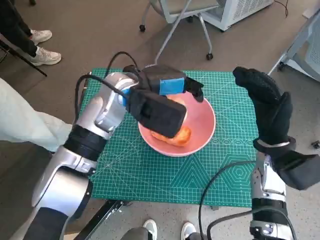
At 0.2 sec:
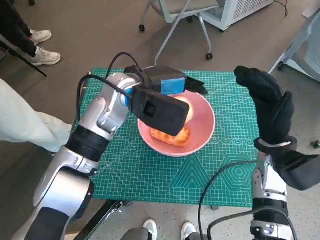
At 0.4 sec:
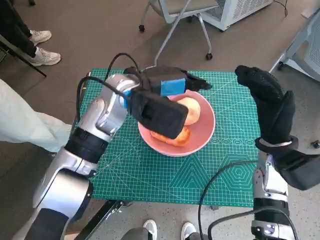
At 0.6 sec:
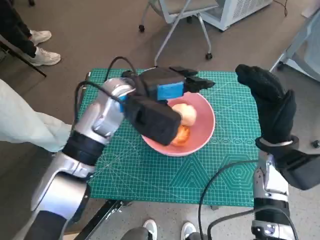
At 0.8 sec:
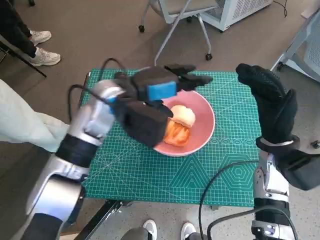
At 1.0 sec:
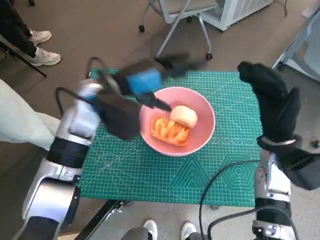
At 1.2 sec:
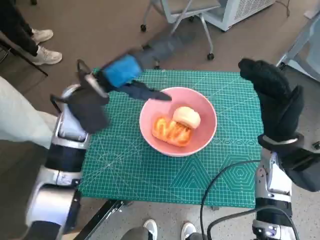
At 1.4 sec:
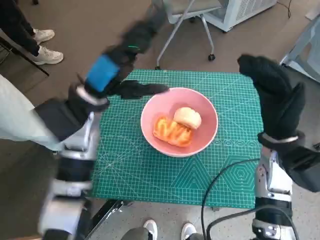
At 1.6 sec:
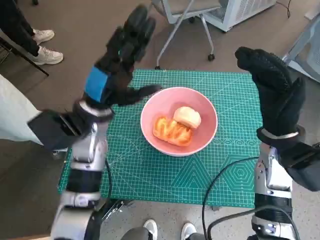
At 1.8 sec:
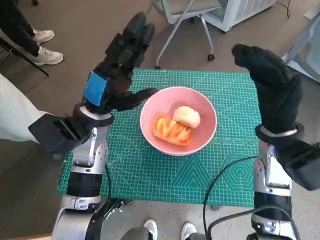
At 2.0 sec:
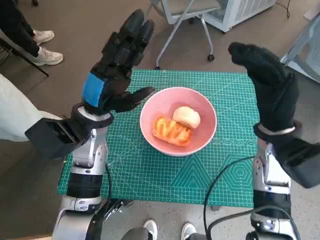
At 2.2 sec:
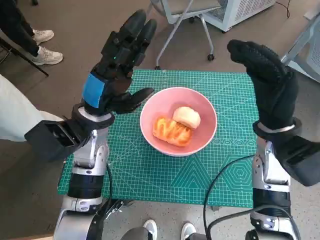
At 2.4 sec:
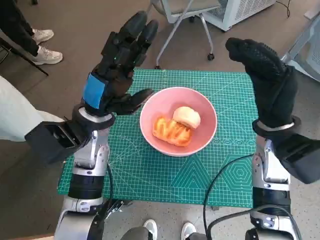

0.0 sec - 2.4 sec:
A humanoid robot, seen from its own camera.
Task of the whole recording: Push the bowl into the center of the table and put the bread into the bowl.
0.0 sec - 1.2 sec: The left hand heads to the left, covering approximately 5 cm.
1.2 sec - 2.4 sec: The left hand goes roughly 5 cm downward.

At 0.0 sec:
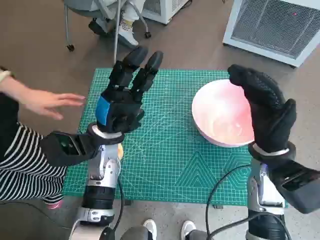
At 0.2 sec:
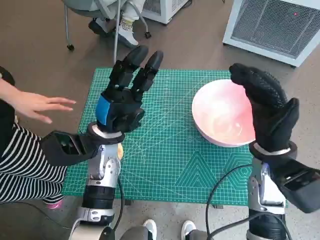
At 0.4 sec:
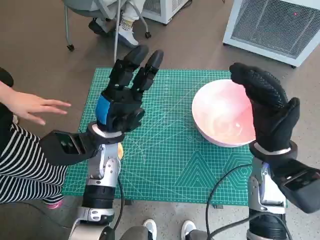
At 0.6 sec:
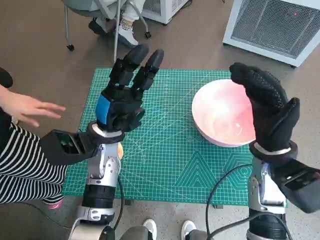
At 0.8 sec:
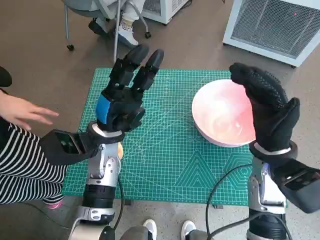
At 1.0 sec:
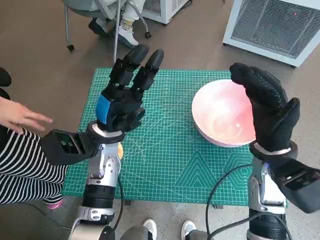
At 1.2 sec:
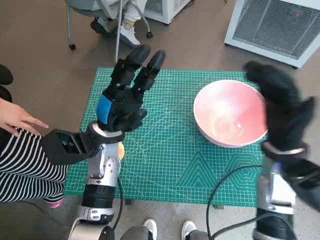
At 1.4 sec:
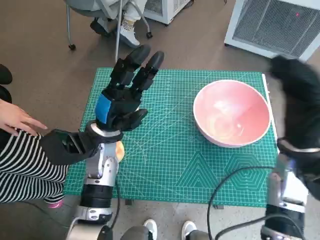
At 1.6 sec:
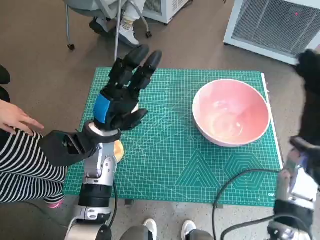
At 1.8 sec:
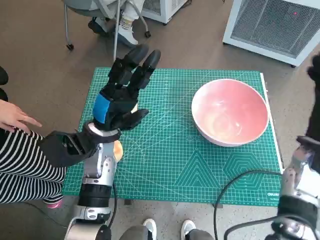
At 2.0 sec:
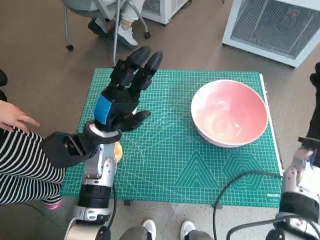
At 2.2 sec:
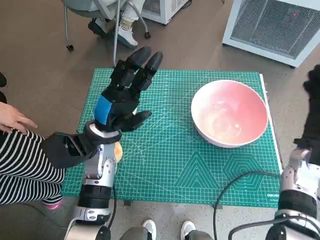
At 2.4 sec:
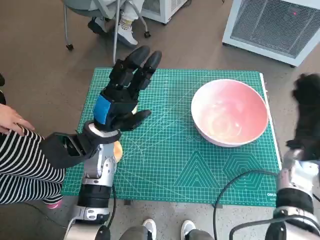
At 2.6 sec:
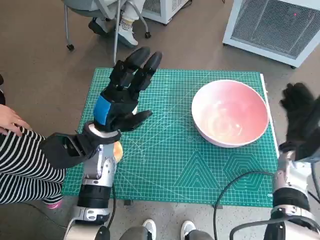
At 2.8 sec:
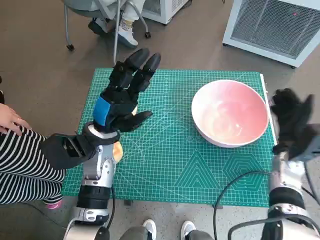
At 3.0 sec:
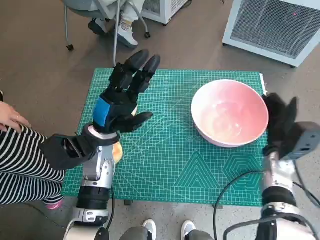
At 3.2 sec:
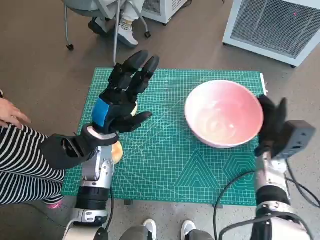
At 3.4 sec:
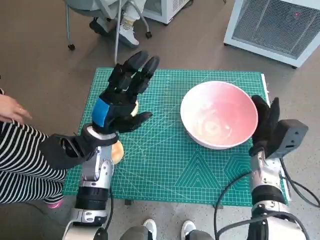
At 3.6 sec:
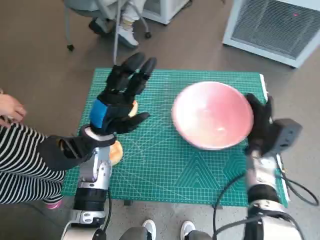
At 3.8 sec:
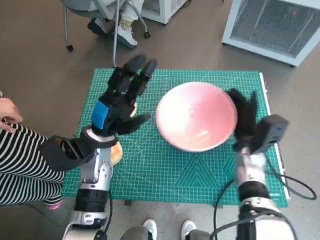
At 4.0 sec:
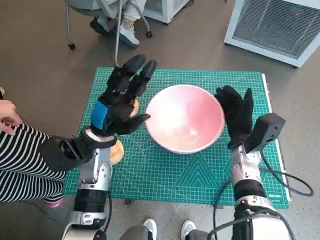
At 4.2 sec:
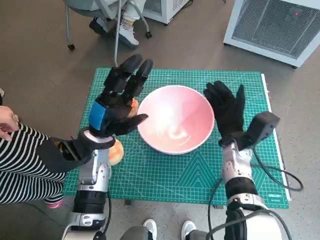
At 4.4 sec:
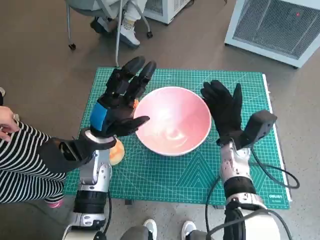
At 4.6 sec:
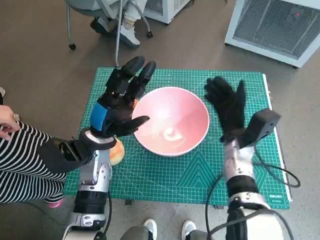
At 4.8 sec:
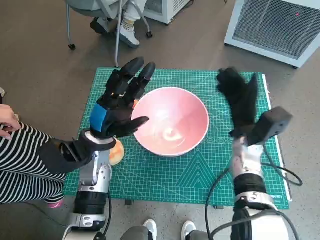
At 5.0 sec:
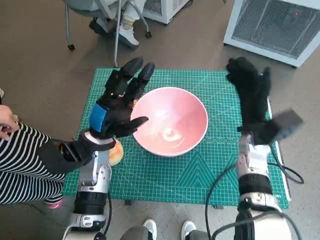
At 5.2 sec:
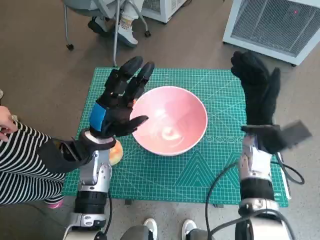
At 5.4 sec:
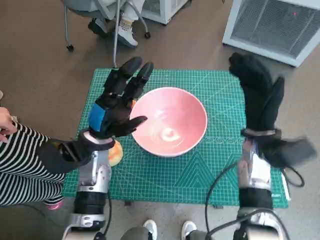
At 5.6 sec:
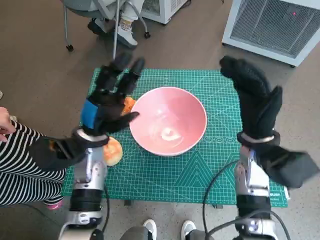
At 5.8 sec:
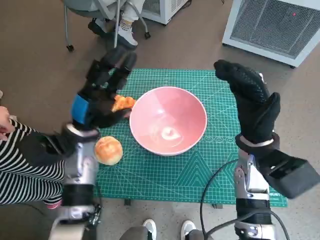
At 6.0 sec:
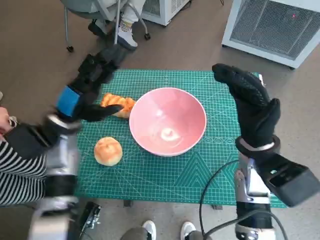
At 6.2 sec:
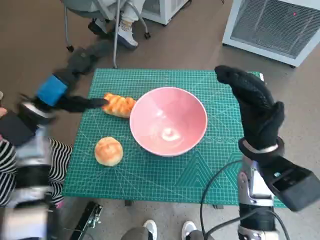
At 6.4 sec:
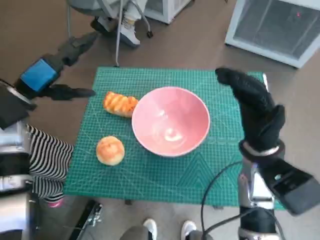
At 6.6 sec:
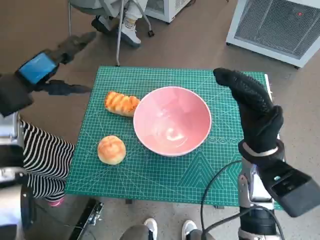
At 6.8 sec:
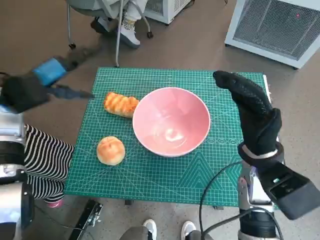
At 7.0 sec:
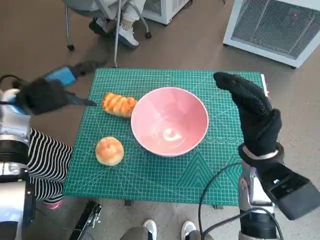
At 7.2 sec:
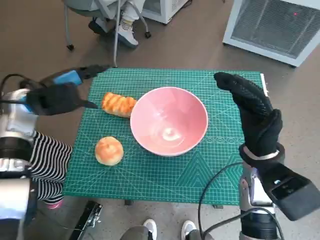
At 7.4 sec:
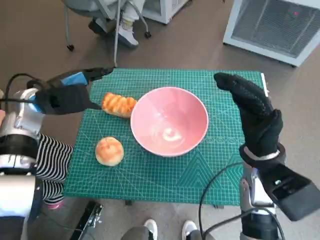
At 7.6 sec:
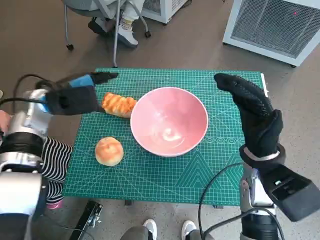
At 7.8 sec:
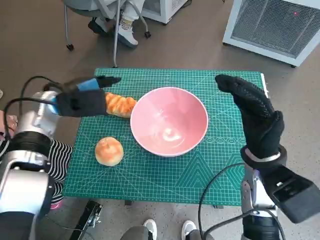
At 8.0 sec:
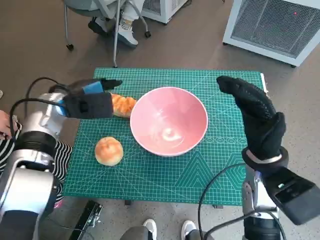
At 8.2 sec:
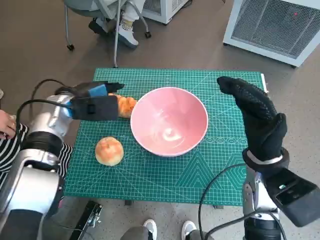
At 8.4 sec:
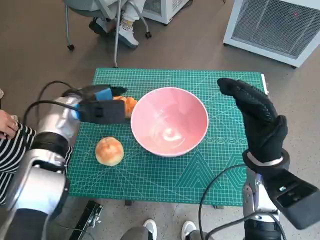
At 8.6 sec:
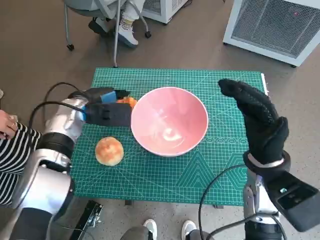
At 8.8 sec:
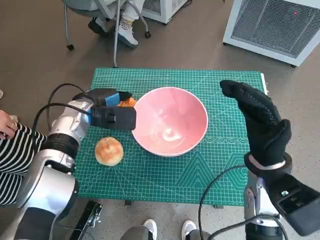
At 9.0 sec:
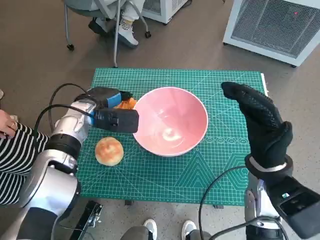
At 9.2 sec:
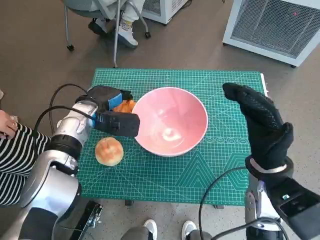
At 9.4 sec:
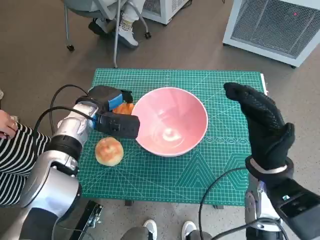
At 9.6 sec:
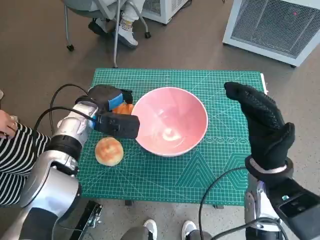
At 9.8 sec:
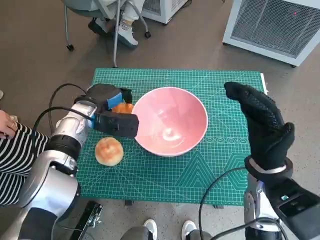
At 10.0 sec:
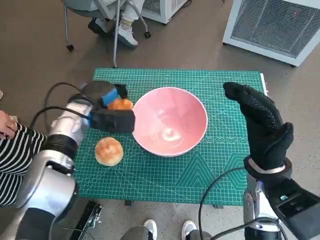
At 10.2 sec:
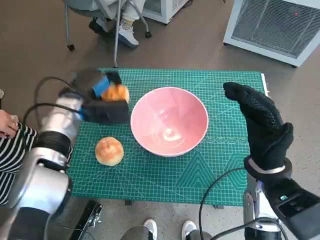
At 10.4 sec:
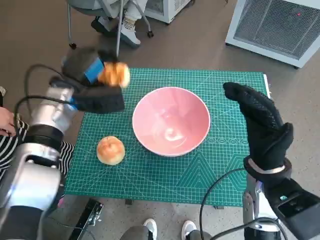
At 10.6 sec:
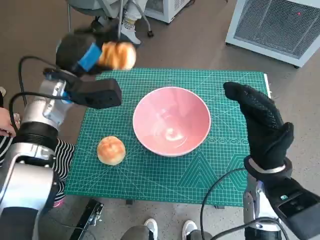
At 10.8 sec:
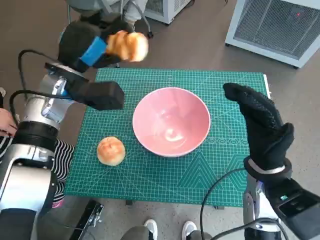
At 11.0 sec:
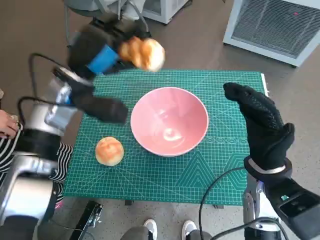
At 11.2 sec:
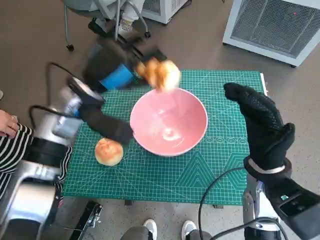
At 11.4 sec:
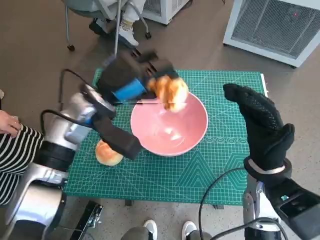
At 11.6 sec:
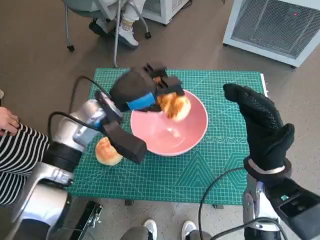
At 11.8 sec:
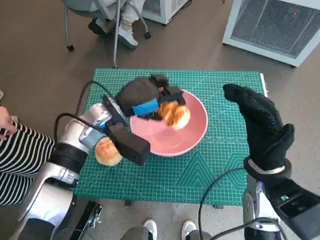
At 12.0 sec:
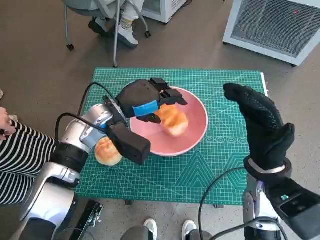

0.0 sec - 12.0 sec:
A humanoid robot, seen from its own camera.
Task of the whole recording: Push the bowl into the center of the table and put the bread into the bowl.
Step, 0.0 sec - 4.6 sec: Move the pink bowl to the center of table with right hand.
Step, 4.8 sec - 9.4 sec: Grasp the long bread with left hand.
1.6 sec - 3.0 sec: The right hand travels downward by about 10 cm.
3.0 sec - 4.4 sec: The right hand is displaced to the left by roughly 10 cm.
4.4 sec - 6.0 sec: The right hand moves upward, about 10 cm; the left hand travels to the left by some 5 cm.
6.0 sec - 7.6 sec: The left hand moves forward, some 5 cm.
7.6 sec - 9.0 sec: The left hand travels to the right and downward by some 10 cm.
10.4 sec - 12.0 sec: The left hand shifts approximately 10 cm to the right.

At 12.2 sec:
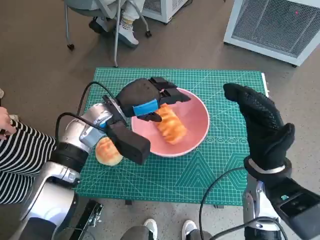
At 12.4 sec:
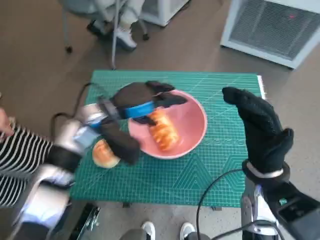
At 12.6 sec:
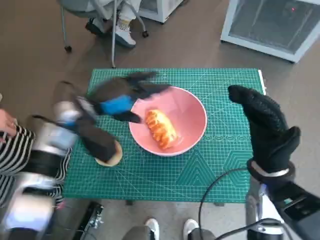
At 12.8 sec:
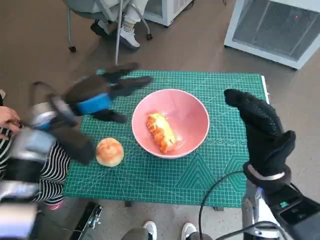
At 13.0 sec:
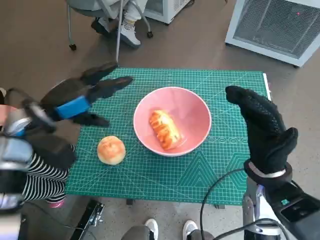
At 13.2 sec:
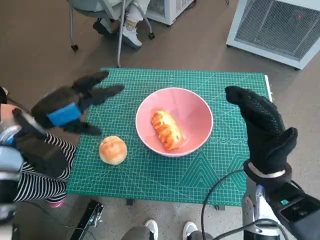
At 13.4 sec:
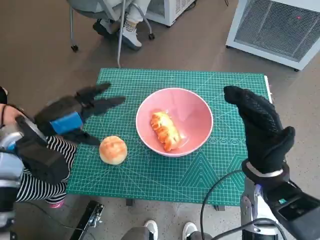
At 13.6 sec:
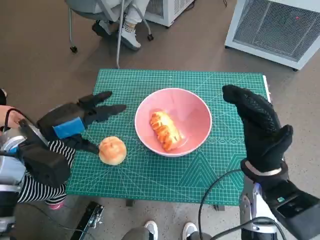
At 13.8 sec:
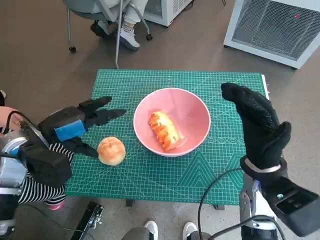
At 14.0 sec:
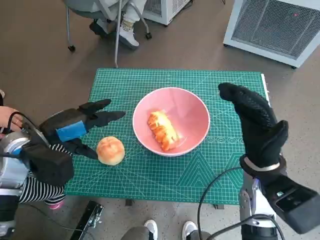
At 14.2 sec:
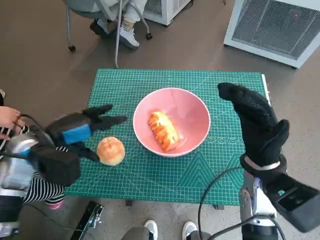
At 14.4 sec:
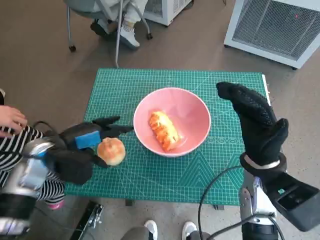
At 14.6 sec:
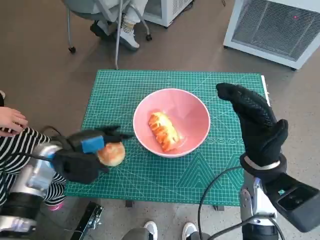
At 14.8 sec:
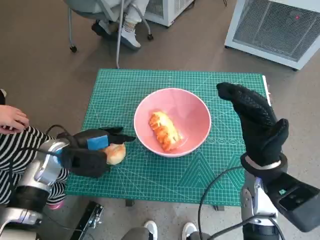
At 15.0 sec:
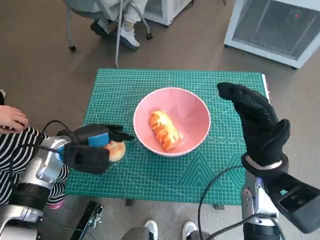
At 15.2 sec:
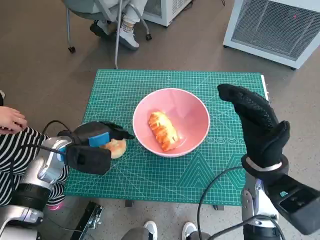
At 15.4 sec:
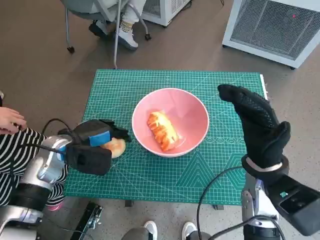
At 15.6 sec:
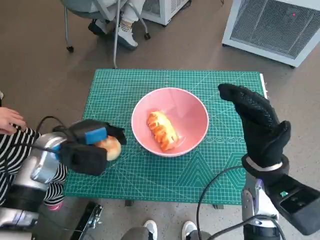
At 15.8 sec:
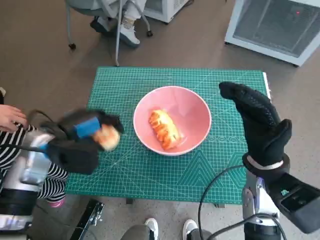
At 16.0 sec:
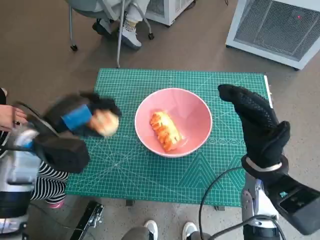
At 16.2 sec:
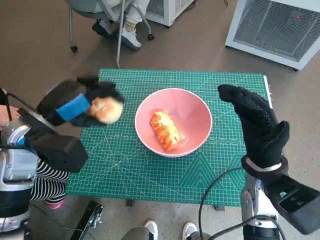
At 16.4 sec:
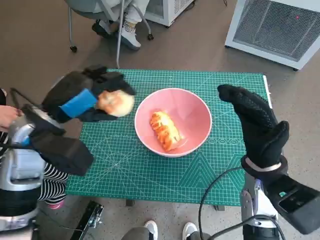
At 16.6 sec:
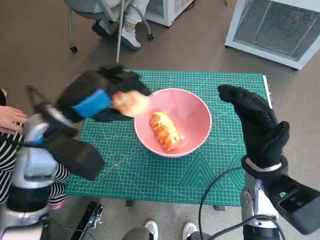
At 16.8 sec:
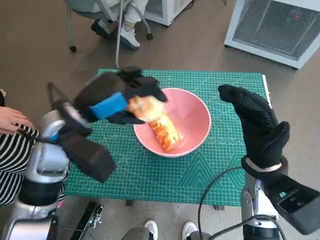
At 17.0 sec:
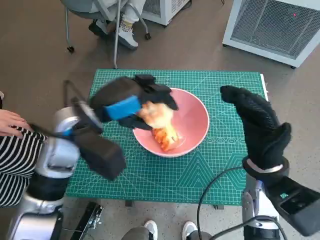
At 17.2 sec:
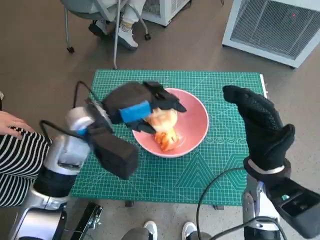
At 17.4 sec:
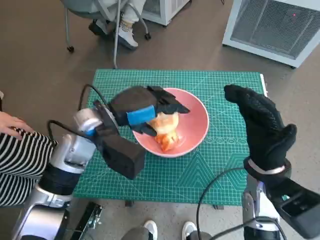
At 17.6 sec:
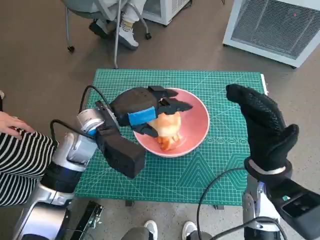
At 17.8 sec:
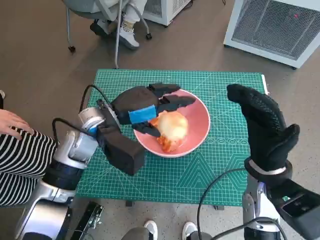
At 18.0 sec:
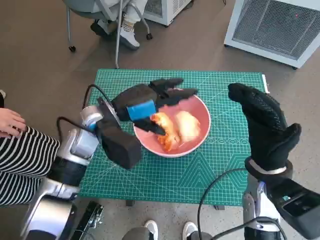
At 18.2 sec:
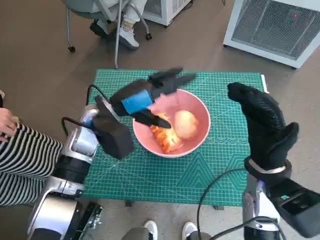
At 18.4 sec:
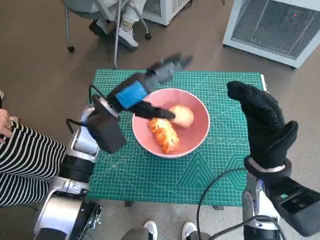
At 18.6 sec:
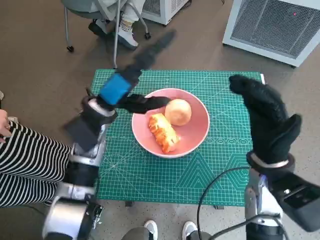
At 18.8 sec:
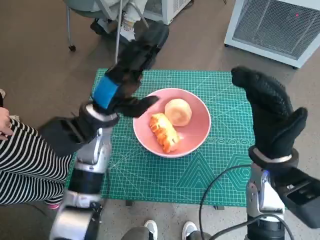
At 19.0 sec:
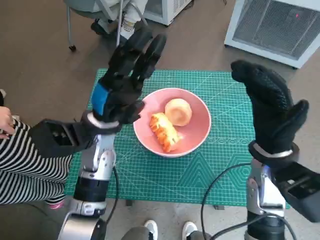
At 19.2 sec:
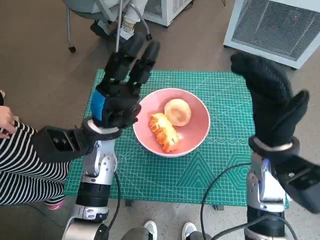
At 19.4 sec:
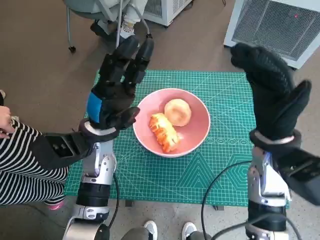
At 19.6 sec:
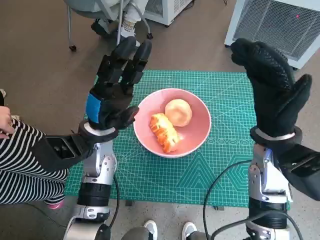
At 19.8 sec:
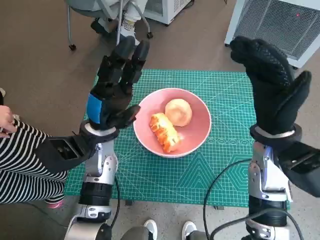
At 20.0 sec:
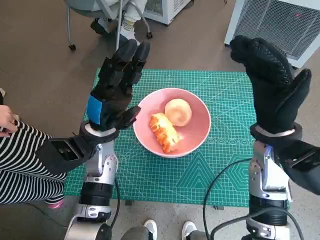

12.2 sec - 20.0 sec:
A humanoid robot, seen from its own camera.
Task of the whole recording: Push the bowl into the center of the table and put the bread into the bowl.
Step, 12.8 sec - 15.2 sec: Grasp the round bread with left hand.
Step, 15.4 sec - 18.4 sec: Place the round bread in pink bowl with left hand.
12.2 sec - 13.8 sec: The left hand goes roughly 15 cm to the left and backward.
13.8 sec - 15.4 sec: The left hand is displaced downward by some 5 cm.
15.4 sec - 16.8 sec: The left hand travels upward and to the right by about 15 cm.
16.8 sec - 18.4 sec: The left hand travels forward by some 5 cm.
18.4 sec - 20.0 sec: The left hand ends up roughly 5 cm from where it was, while the right hand ends up some 5 cm from where it was.
